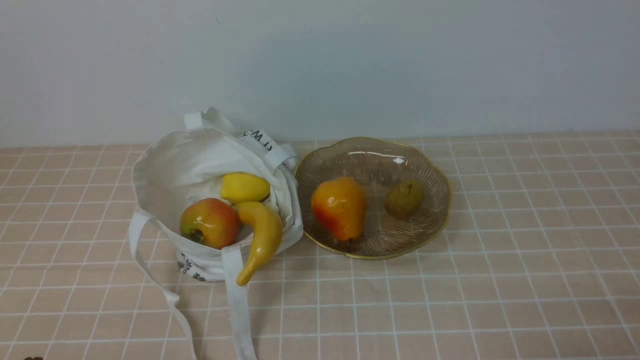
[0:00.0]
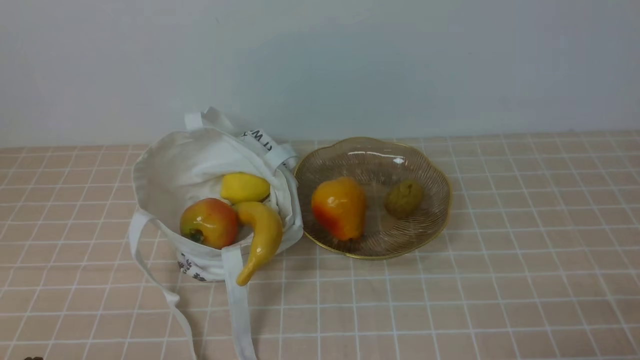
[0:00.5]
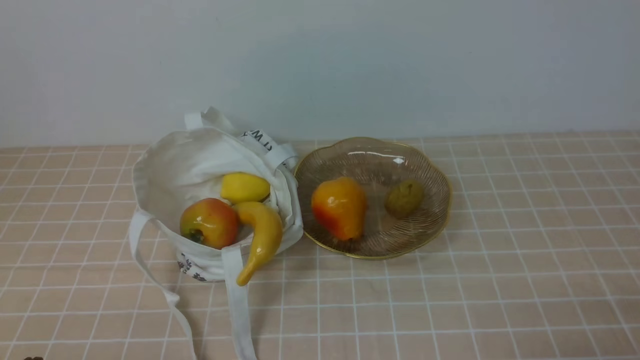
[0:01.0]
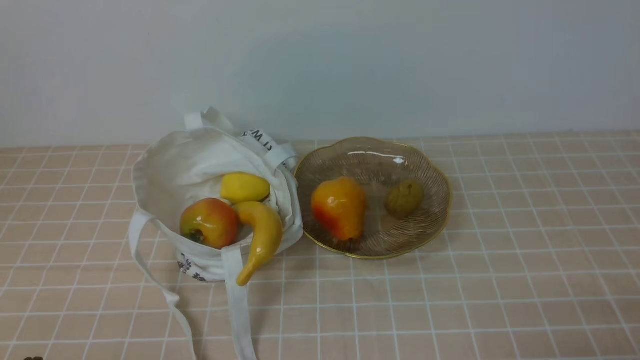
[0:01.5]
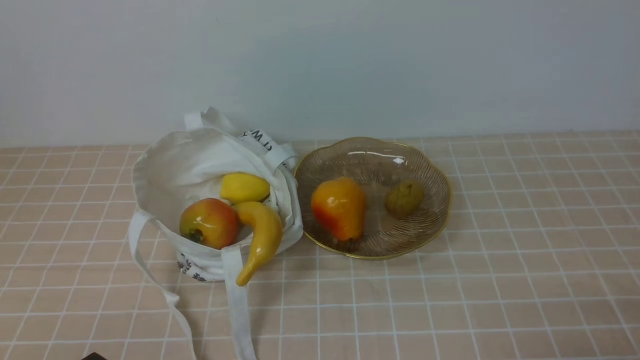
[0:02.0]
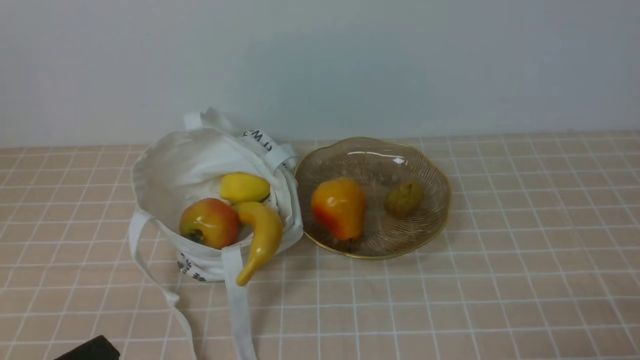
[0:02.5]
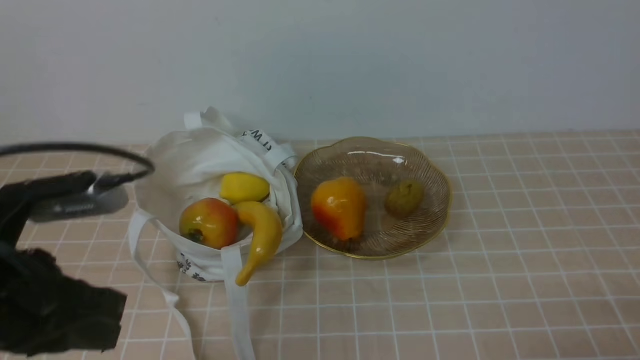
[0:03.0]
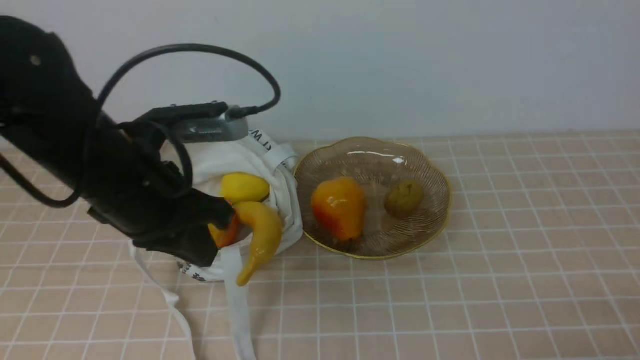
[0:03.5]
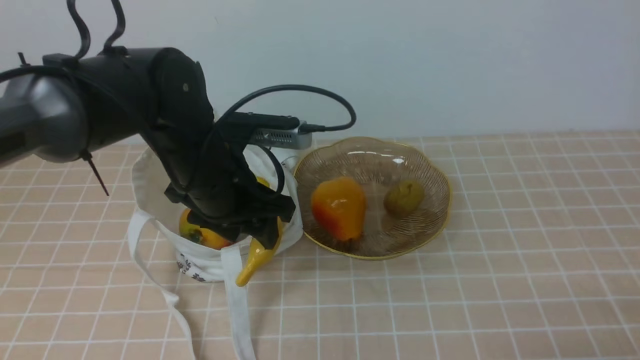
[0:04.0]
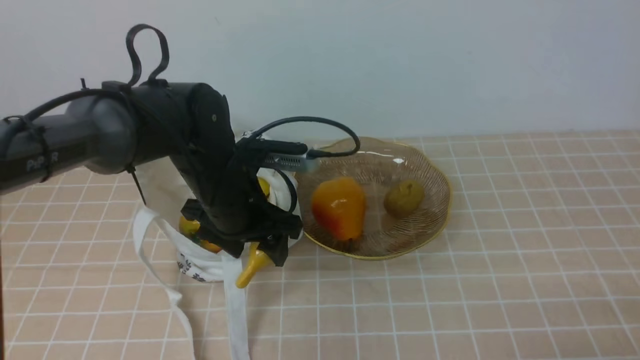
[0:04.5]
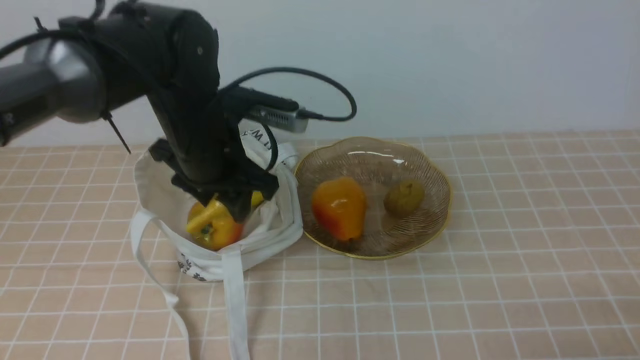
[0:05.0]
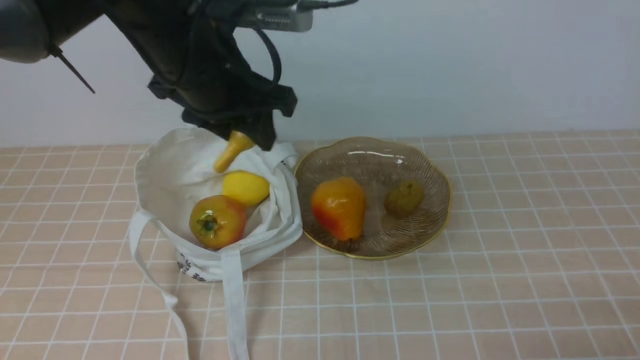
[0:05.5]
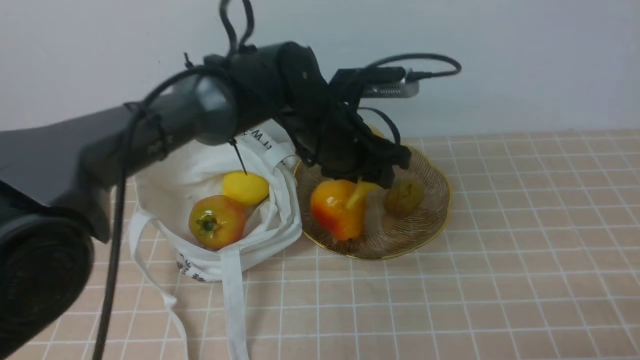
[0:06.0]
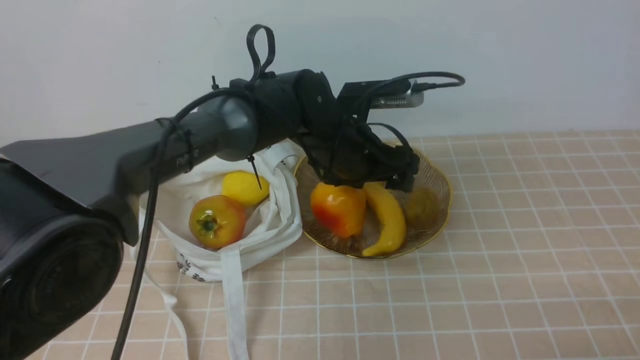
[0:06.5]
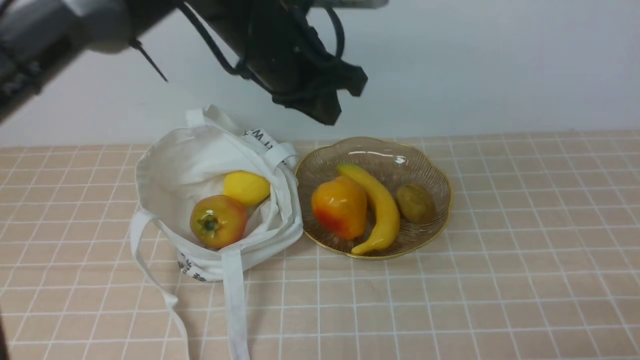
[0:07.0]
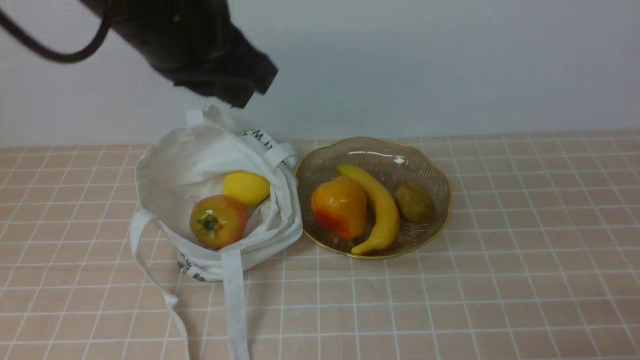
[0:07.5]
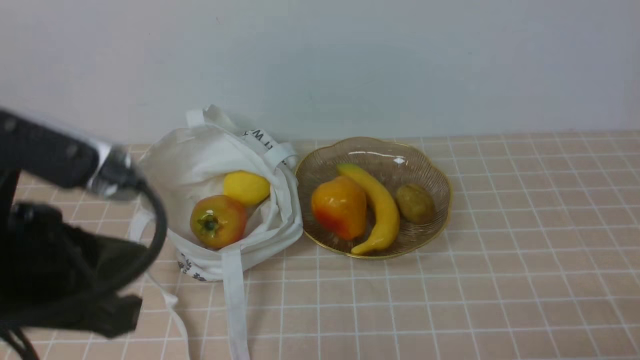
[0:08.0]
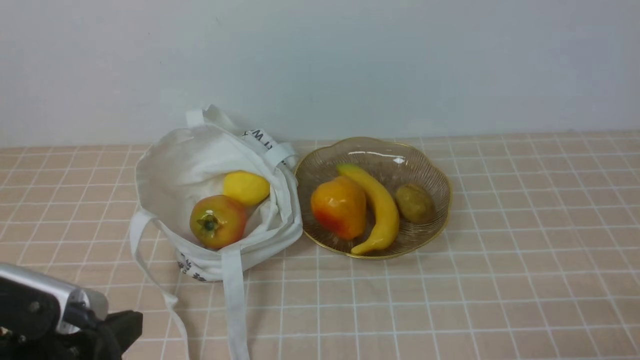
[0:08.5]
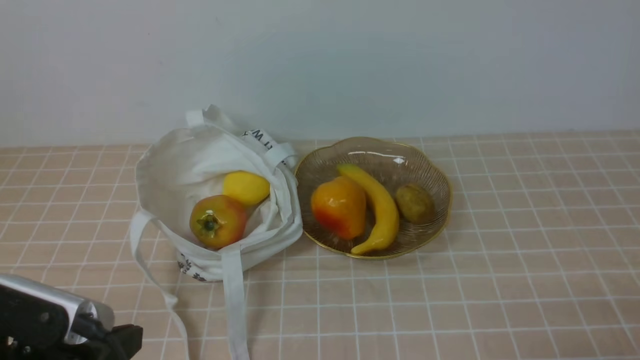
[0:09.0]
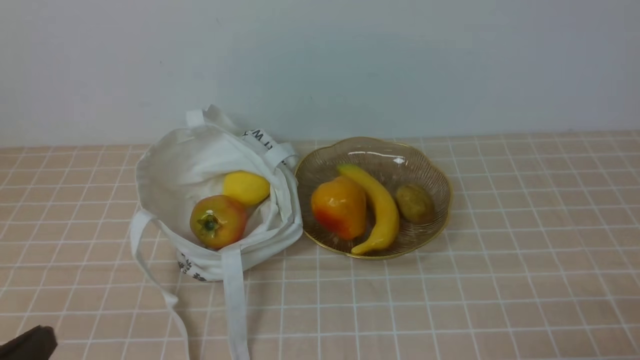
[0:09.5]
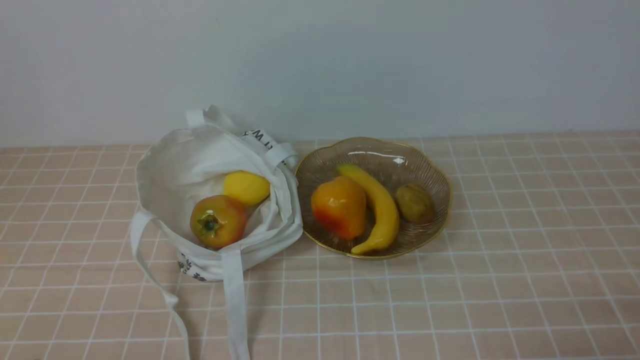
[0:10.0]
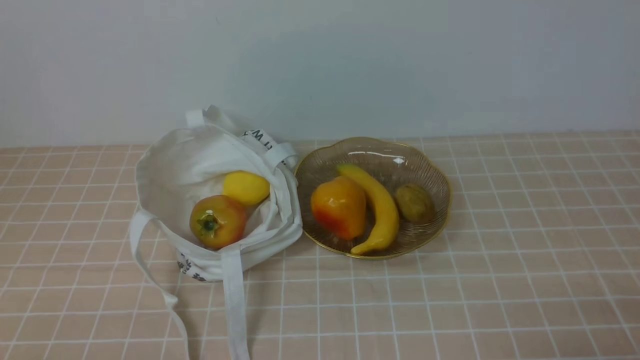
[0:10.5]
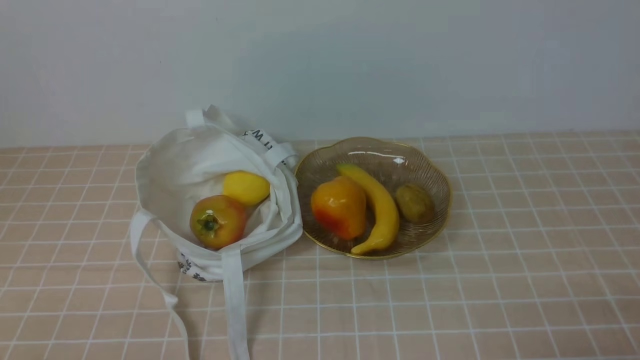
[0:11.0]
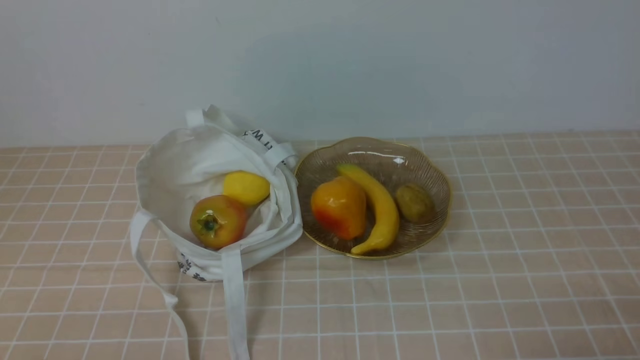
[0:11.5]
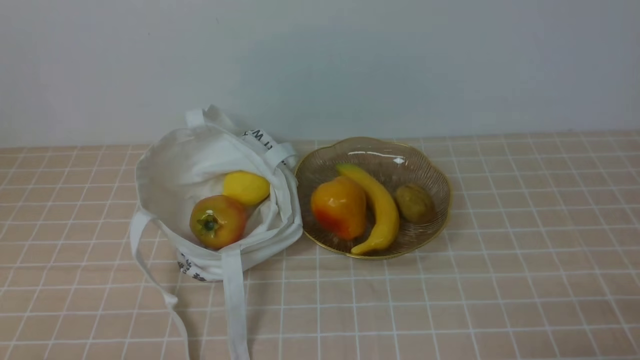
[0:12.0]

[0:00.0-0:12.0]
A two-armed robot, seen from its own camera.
Step, 0:00.0 to 0:05.0: use the left arm to grab a banana from the bag.
Step, 0:05.5 to 0:06.5: use the left arm to put the banana into the empty plate on the right.
0:02.0 to 0:04.0: The left gripper goes about 30 cm forward and to the right, and opens its fingers.
0:04.0 to 0:06.0: The left gripper goes up and down, roughly 15 cm each way, reversing 2 times.
0:06.0 to 0:08.0: The left gripper shifts about 30 cm backward, to the left and upward, and closes up.
0:08.0 to 0:10.0: The left gripper travels downward, backward and to the left by some 25 cm.
0:10.0 to 0:12.0: Neither gripper changes place.
